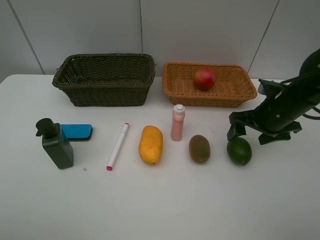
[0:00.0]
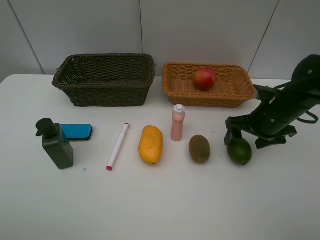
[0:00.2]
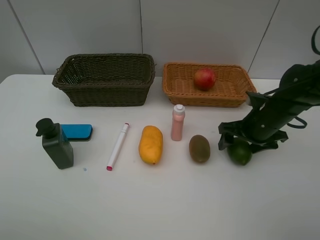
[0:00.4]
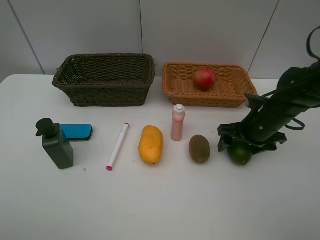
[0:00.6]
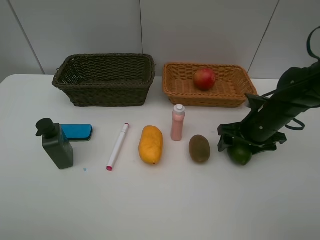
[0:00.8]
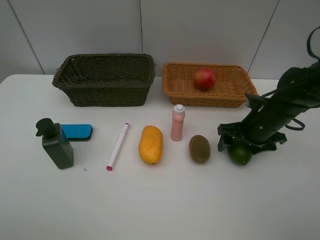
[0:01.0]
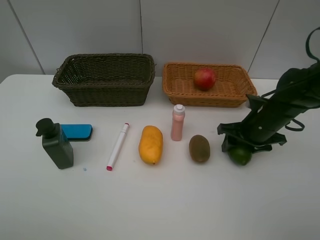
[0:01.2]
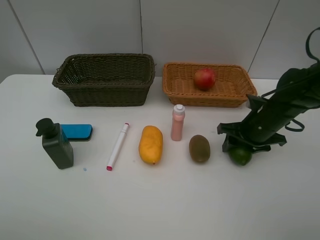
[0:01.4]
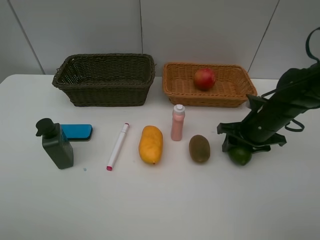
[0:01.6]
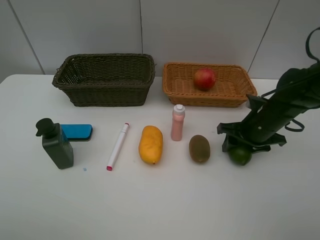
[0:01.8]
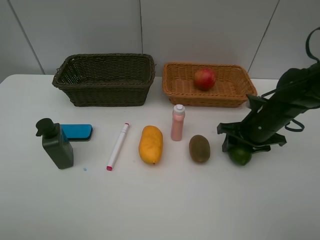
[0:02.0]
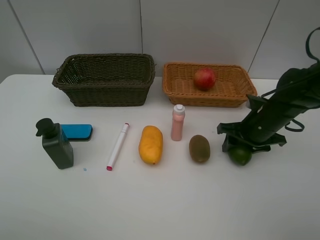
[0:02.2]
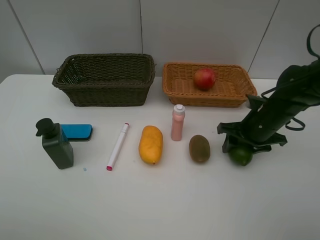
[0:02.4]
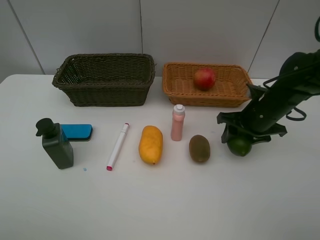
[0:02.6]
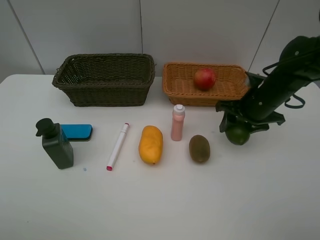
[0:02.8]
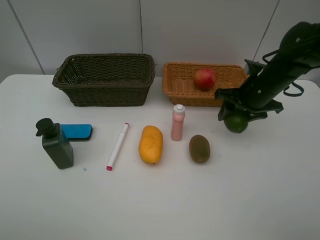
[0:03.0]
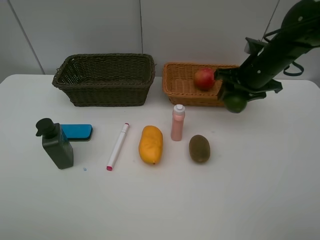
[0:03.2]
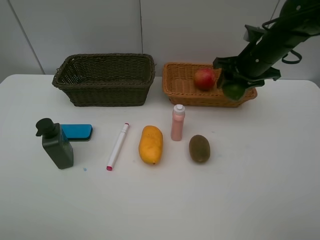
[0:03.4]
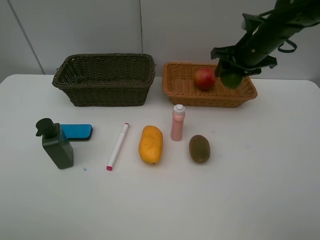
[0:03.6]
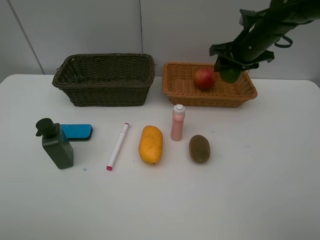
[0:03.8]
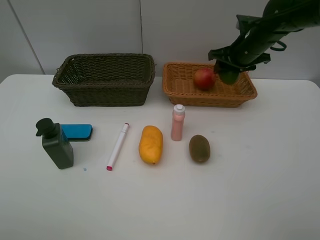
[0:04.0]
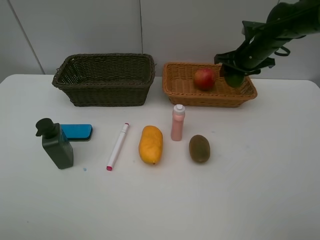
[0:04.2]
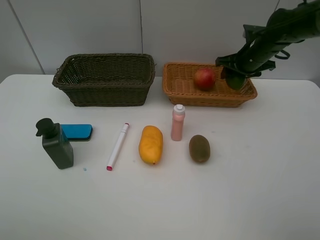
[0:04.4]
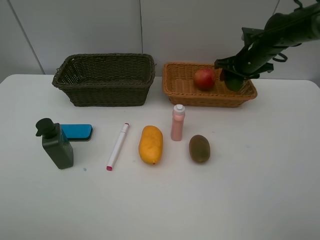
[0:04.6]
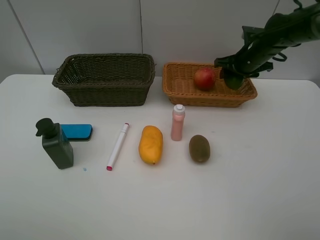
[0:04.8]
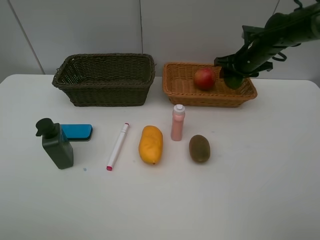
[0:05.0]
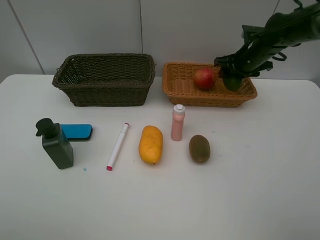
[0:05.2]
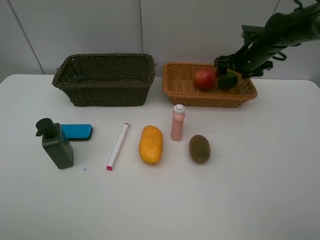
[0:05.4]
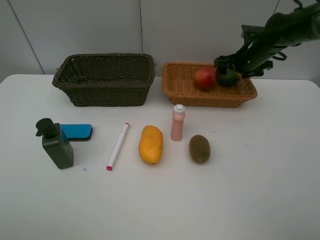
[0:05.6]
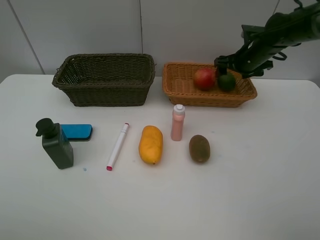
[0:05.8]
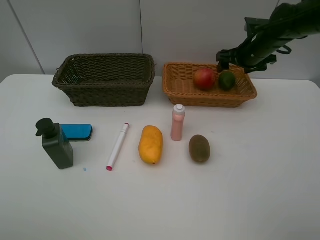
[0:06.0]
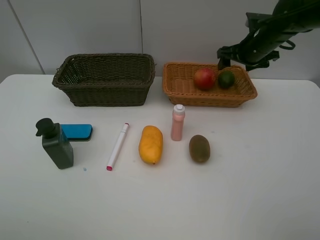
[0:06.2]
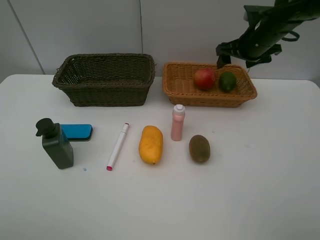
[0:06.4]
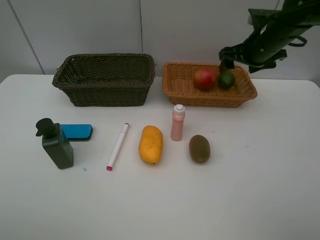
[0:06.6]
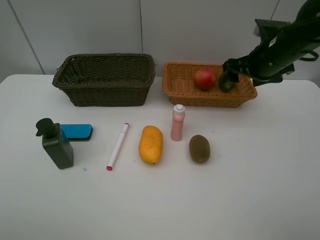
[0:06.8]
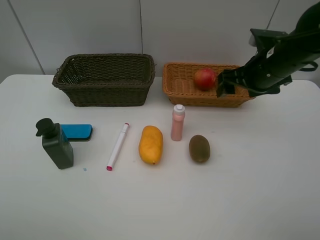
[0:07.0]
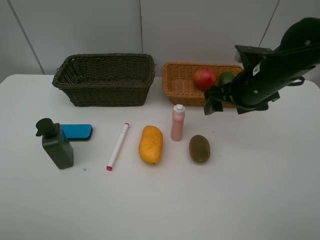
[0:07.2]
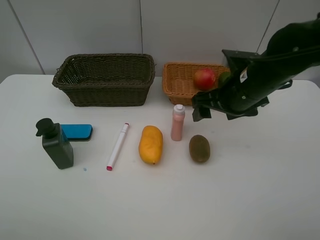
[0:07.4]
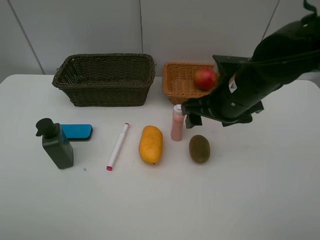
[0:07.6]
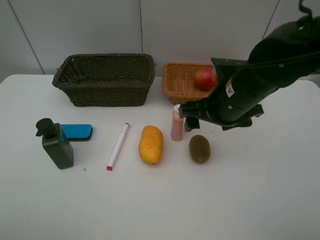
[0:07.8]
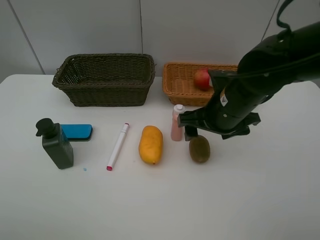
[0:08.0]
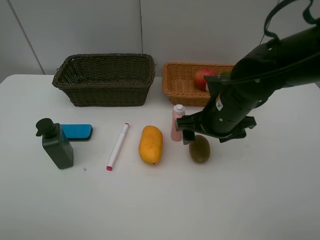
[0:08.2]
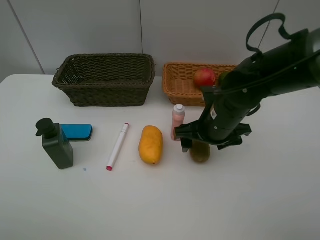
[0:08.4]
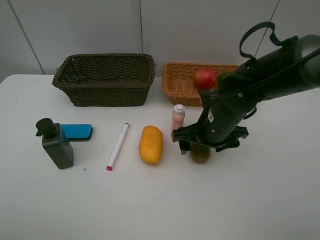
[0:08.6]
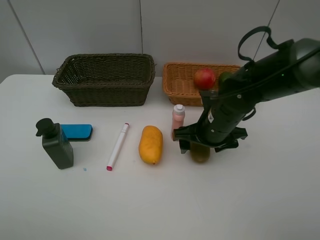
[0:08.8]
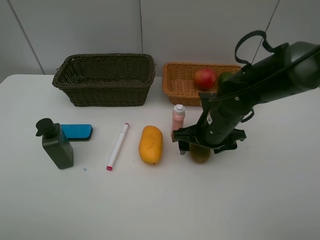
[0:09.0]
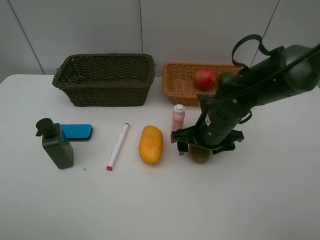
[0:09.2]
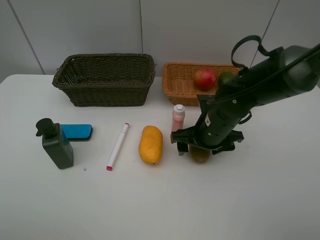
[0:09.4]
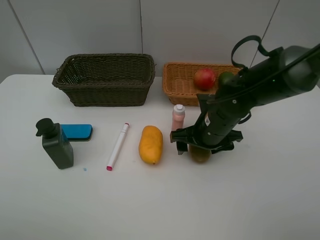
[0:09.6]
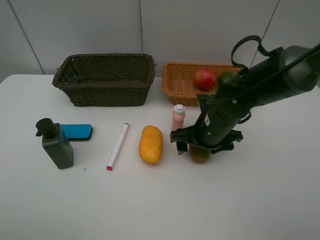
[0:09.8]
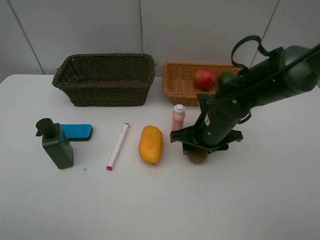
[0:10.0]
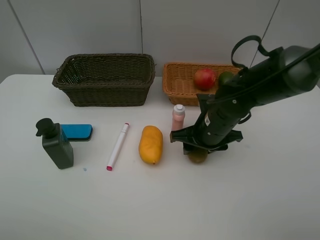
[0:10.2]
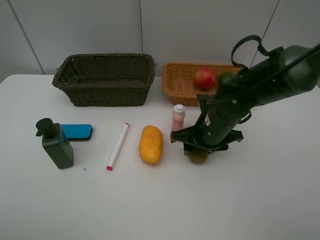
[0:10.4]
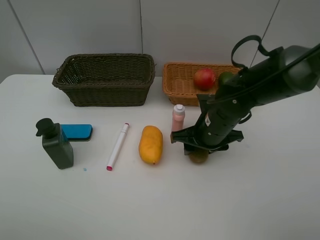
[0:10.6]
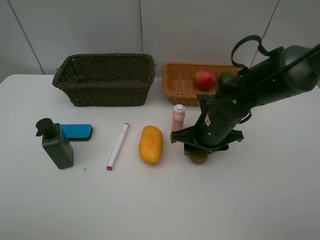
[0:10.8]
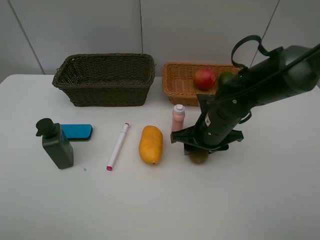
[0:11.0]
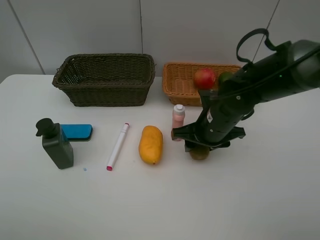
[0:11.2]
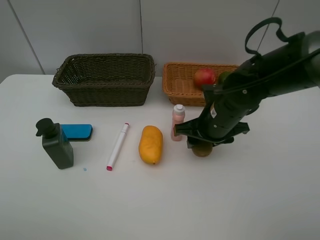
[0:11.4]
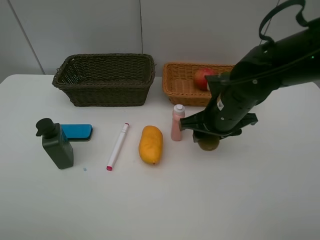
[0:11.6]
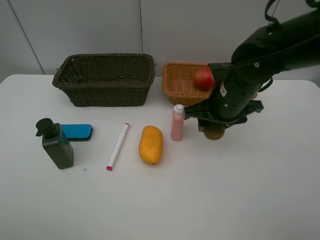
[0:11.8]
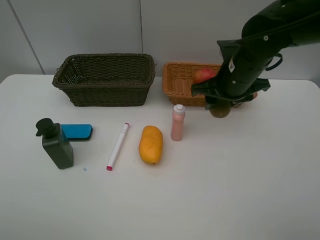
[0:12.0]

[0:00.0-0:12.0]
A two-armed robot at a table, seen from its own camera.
Task of the whole recording: Place multiple objects separately in different baskets.
Step, 0.0 to 2.8 s: Pick up the lime with right gripper.
Step, 3.0 to 5.8 s: Place the lime in the light basket with right gripper.
Step, 6.0 to 11.6 s: Pick up kiwi with right gripper.
0.0 to 1.6 s: The right gripper closes up.
1.6 to 3.0 s: The right gripper moves upward, approximately 5 cm.
3.0 to 4.4 s: The right gripper is displaced forward by some 10 cm.
4.4 to 6.0 s: The right gripper opens its fingers.
6.0 to 7.6 s: The right gripper goes some 20 cm backward and to the left.
7.6 to 9.0 s: The right gripper moves downward, about 10 cm.
9.0 to 10.4 s: The right gripper closes.
10.4 to 12.0 s: The right gripper goes some 10 cm upward.

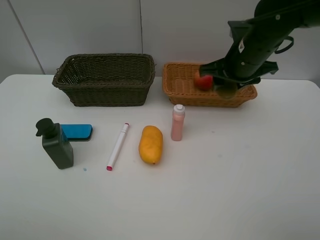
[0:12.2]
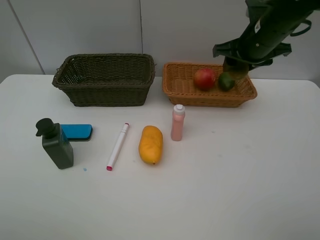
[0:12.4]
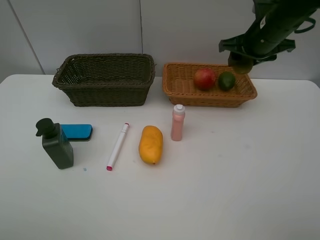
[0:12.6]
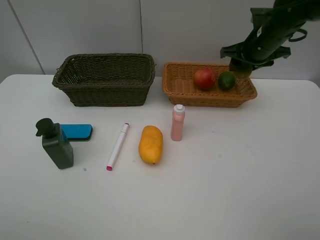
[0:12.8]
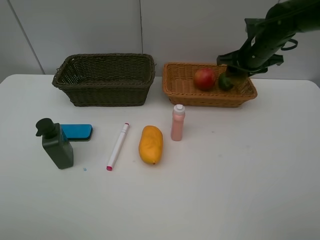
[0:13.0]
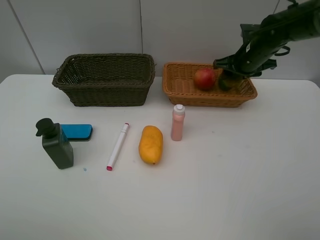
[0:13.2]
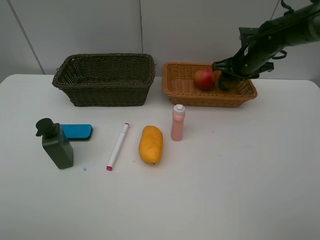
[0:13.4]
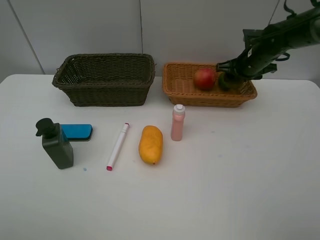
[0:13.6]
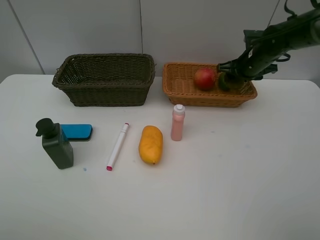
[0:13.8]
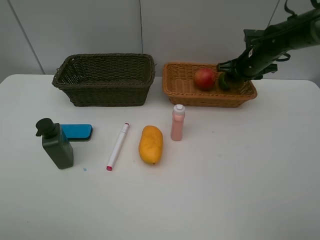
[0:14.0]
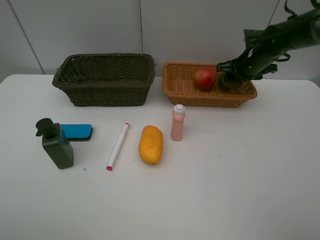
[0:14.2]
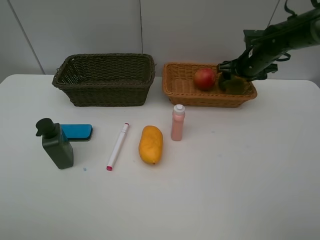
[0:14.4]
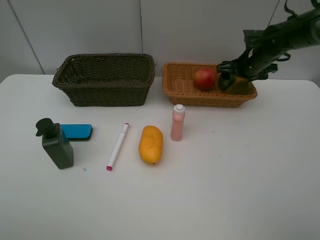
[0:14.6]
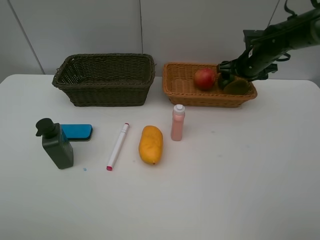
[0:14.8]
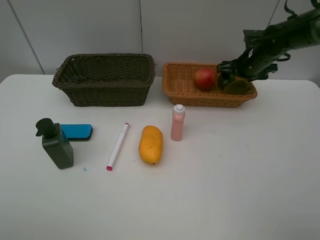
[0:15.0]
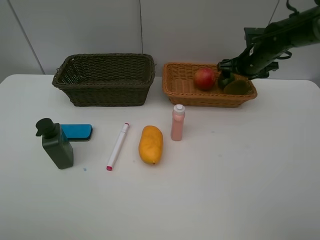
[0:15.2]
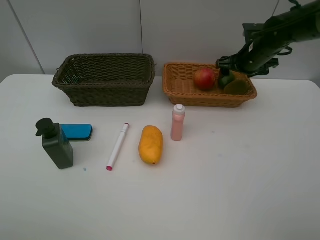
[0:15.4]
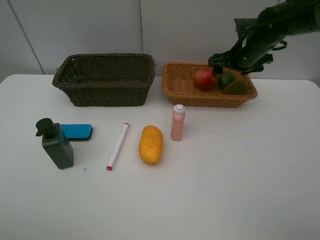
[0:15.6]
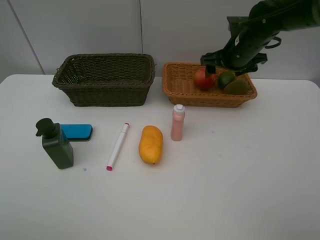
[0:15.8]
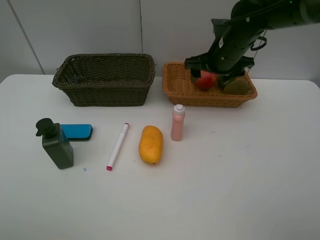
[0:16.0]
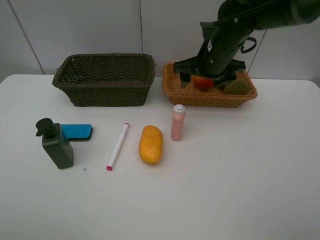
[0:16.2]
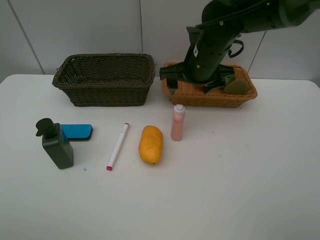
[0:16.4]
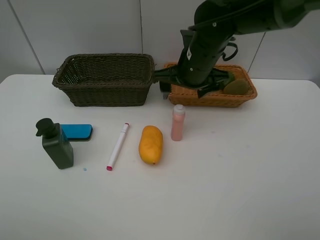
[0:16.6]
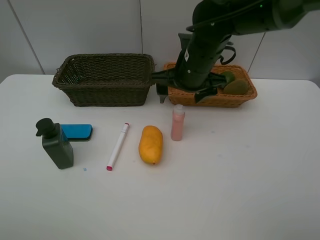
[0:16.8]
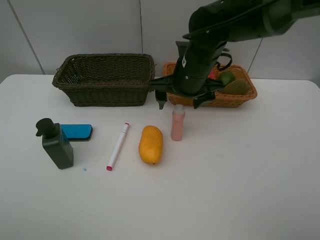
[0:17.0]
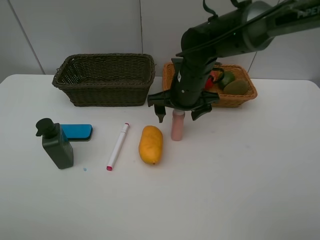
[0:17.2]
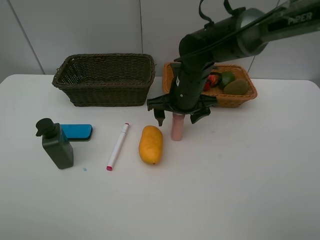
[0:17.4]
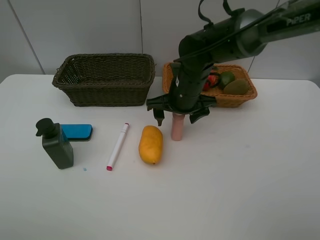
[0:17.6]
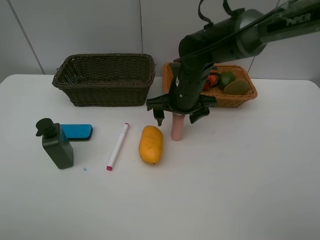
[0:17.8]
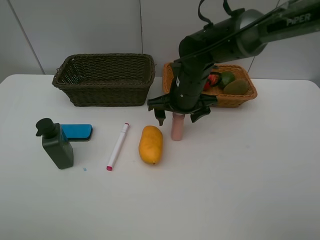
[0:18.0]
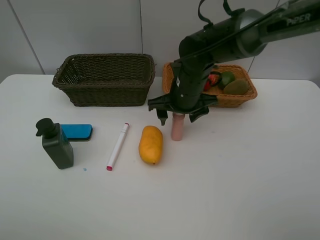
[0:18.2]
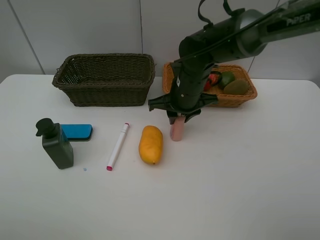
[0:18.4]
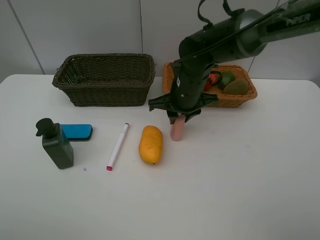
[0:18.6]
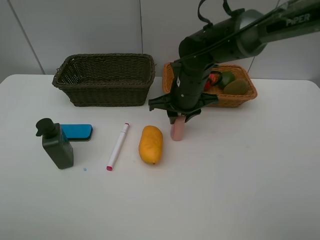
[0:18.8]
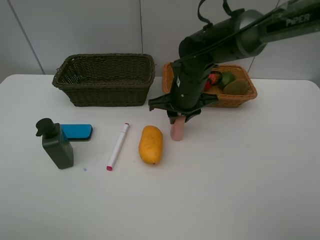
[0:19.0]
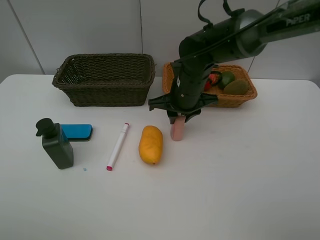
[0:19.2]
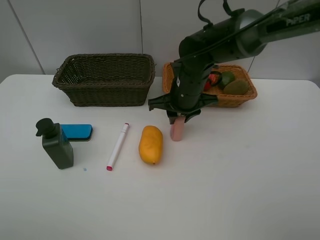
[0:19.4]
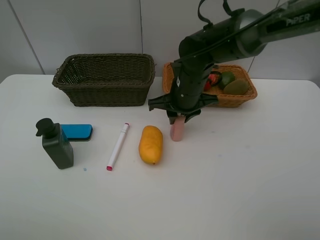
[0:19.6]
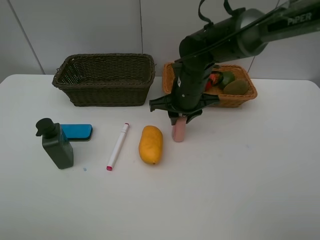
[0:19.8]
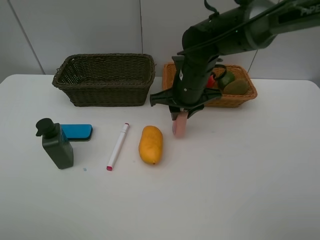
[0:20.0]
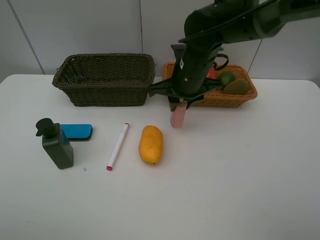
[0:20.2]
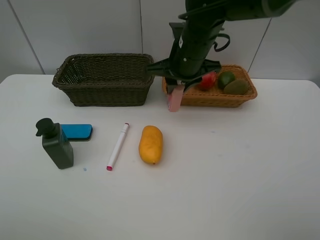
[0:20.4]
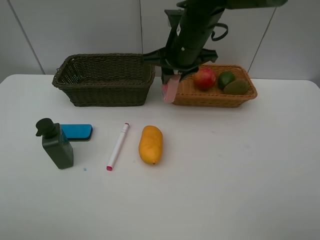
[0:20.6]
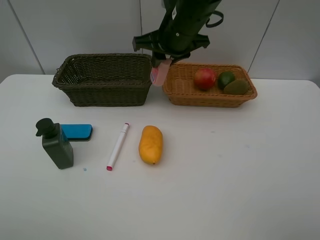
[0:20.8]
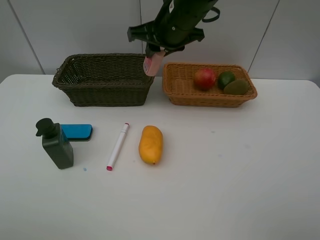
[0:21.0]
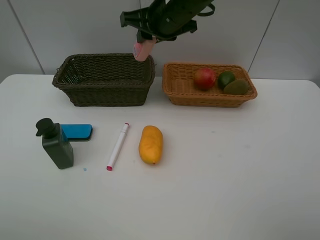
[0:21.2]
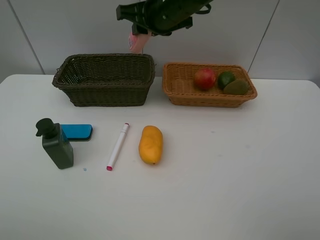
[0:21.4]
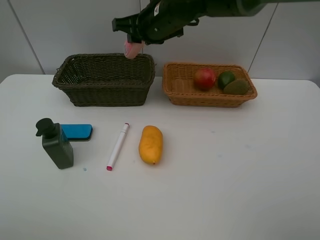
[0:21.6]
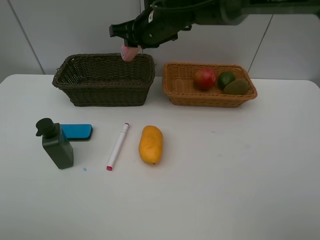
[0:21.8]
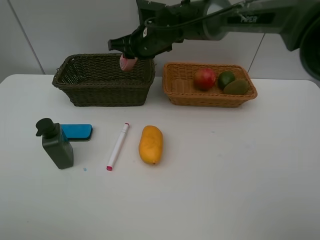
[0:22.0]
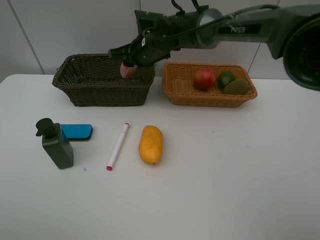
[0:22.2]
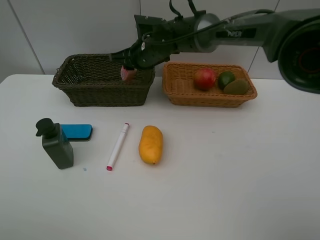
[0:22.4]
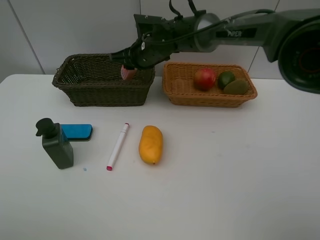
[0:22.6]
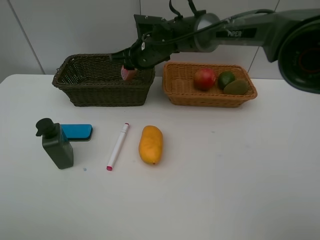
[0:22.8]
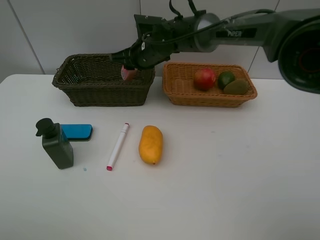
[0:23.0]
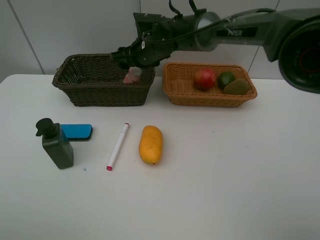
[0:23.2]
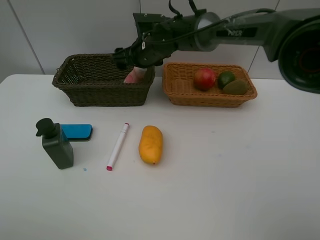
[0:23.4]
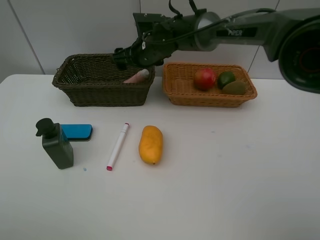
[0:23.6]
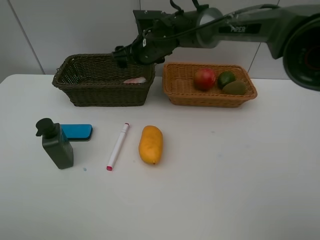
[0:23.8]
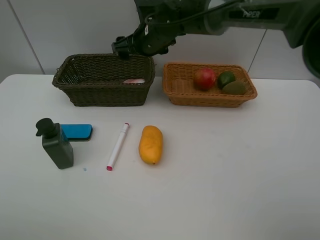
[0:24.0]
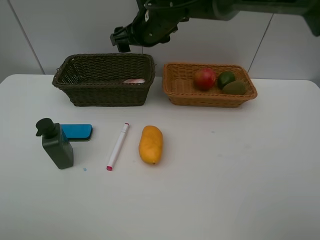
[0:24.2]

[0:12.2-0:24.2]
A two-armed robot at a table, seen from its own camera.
Task of the whole recording: Place multiple objects separately in different baskets.
Step, 12.2 to 15.2 s: Place the kiwi in the light basket with right gripper.
Step, 15.4 to 20.2 s: Pick up the laundry detergent with right gripper.
Step, 20.4 to 23.6 s: Place the laundry detergent in the dark basket with right gripper.
12.2 to 13.8 s: The right gripper travels forward, to the right and downward by approximately 15 cm.
13.8 to 15.2 s: The right gripper opens its fingers.
15.2 to 16.6 s: The right gripper is displaced to the left and backward by roughly 20 cm.
16.6 to 18.2 s: The right gripper goes roughly 5 cm downward.
18.2 to 19.8 s: The right gripper closes its fingers.
19.8 to 21.2 s: The right gripper travels upward by about 15 cm.
21.2 to 22.6 s: The right gripper is displaced downward and forward by approximately 10 cm.
22.6 to 24.2 s: The right gripper is displaced upward by some 10 cm, and opens its fingers.
